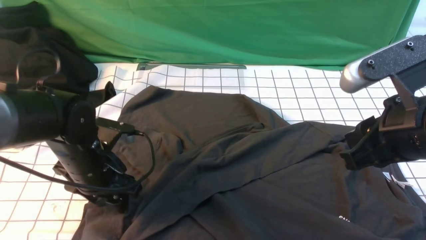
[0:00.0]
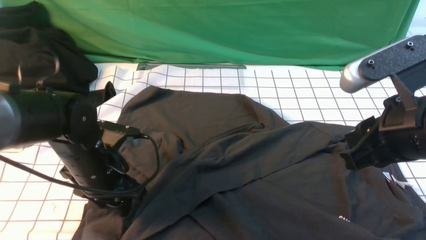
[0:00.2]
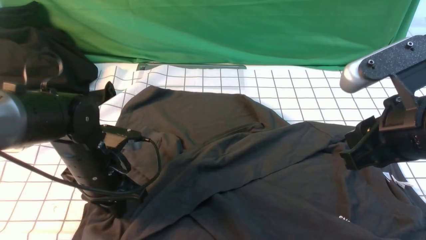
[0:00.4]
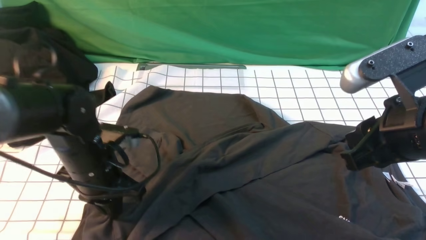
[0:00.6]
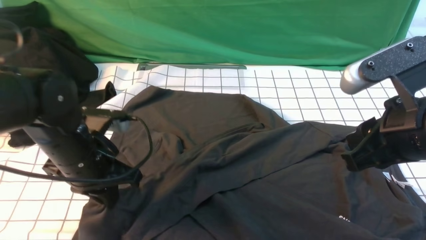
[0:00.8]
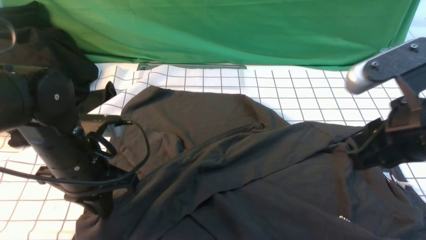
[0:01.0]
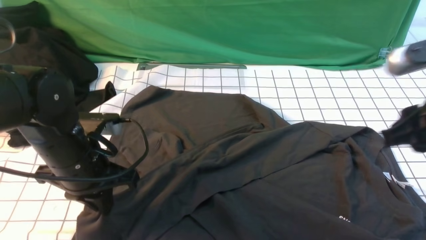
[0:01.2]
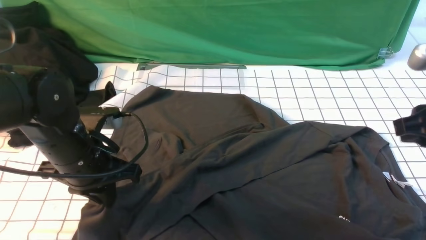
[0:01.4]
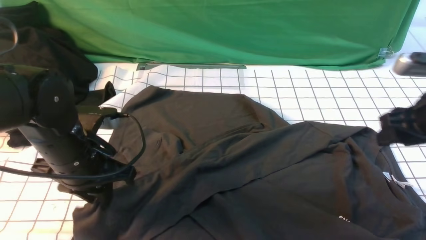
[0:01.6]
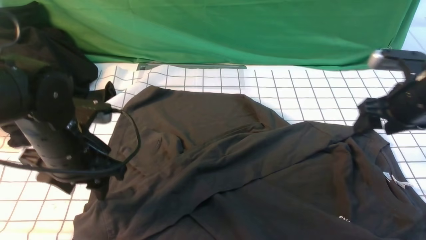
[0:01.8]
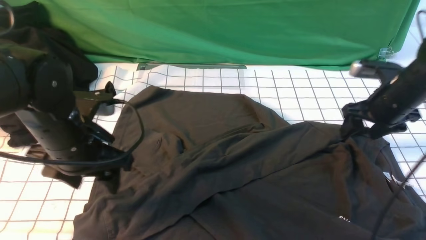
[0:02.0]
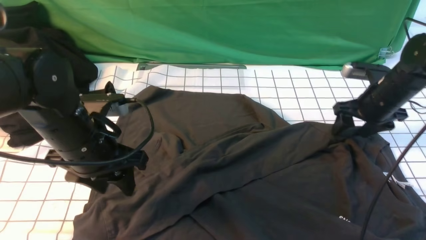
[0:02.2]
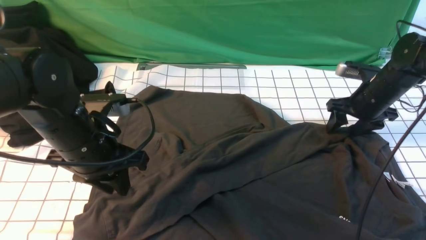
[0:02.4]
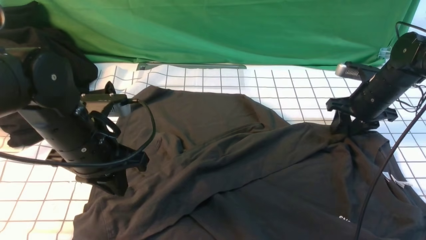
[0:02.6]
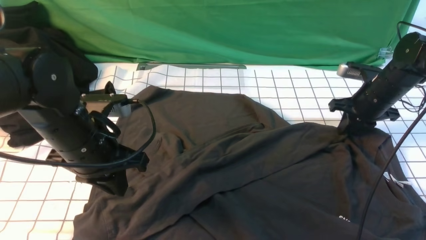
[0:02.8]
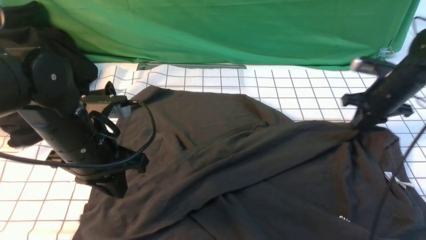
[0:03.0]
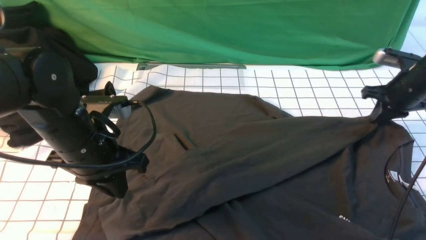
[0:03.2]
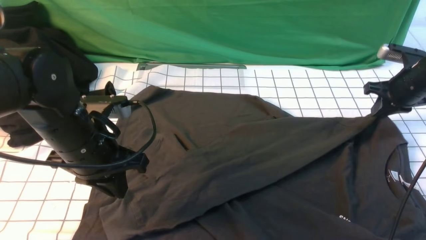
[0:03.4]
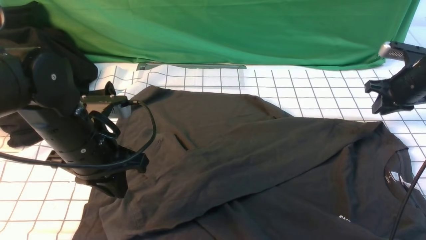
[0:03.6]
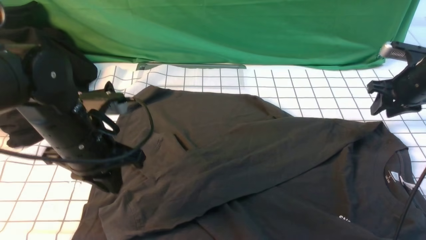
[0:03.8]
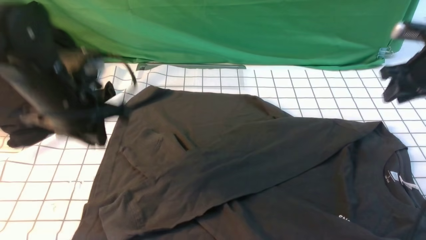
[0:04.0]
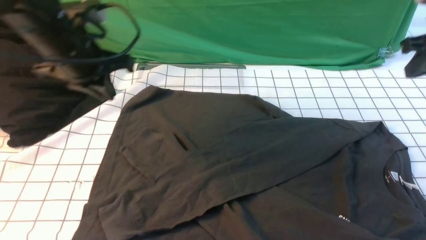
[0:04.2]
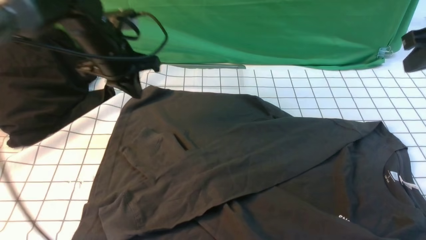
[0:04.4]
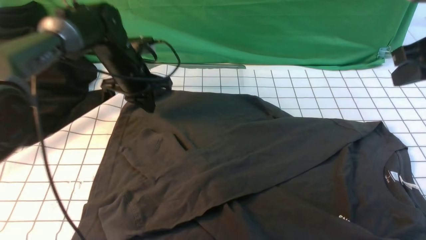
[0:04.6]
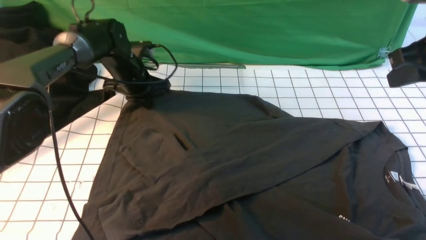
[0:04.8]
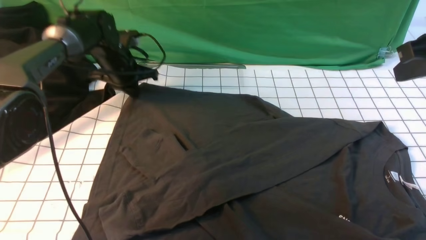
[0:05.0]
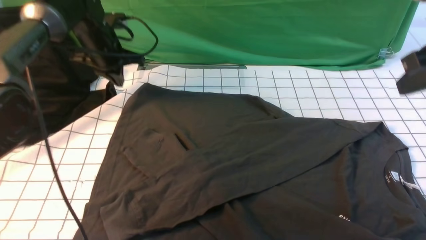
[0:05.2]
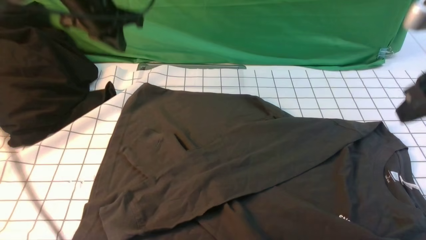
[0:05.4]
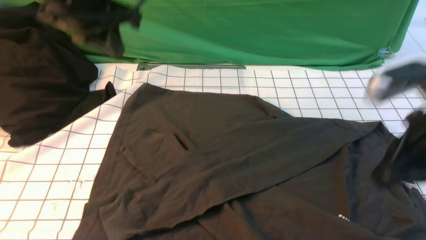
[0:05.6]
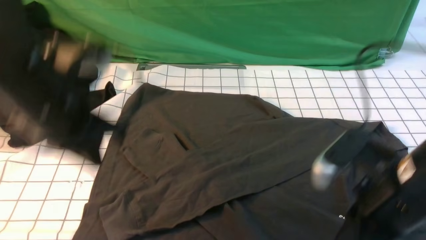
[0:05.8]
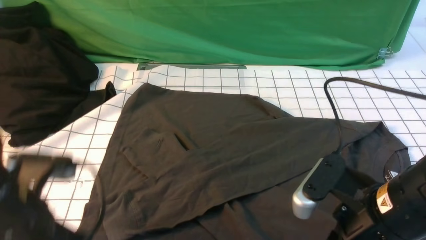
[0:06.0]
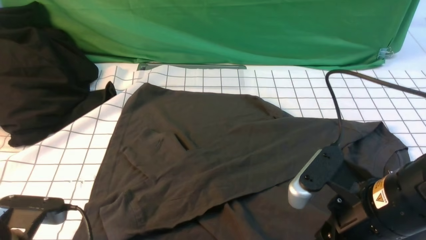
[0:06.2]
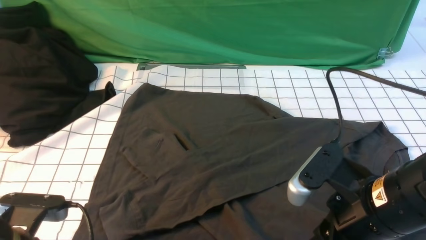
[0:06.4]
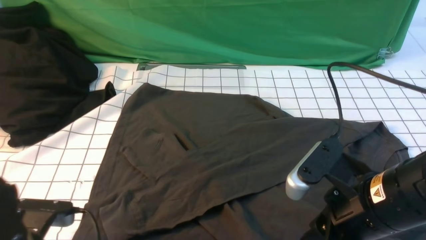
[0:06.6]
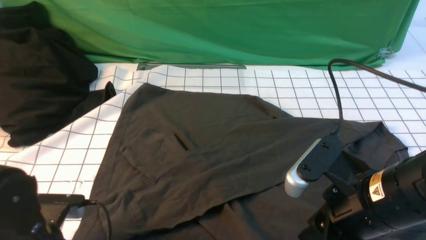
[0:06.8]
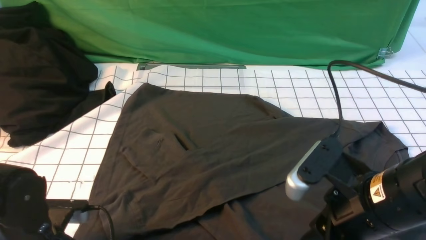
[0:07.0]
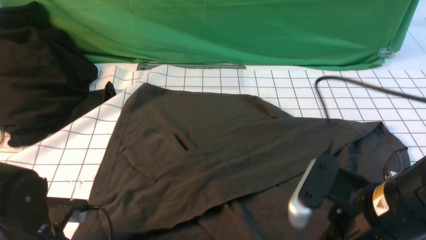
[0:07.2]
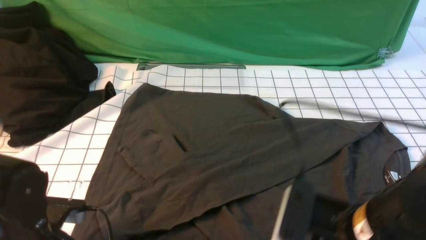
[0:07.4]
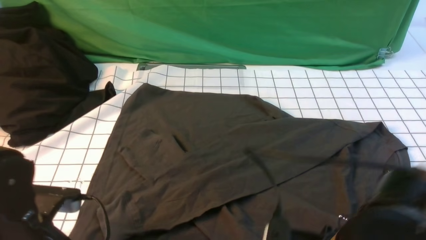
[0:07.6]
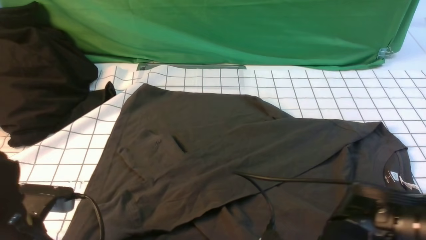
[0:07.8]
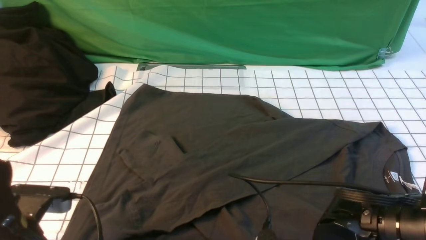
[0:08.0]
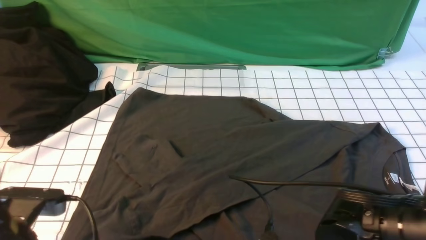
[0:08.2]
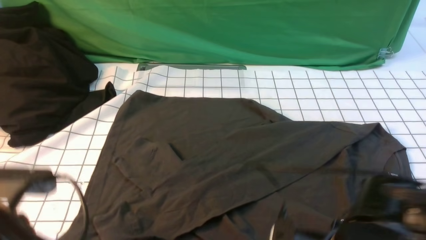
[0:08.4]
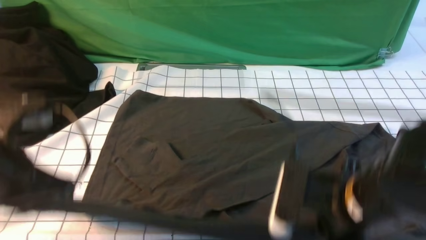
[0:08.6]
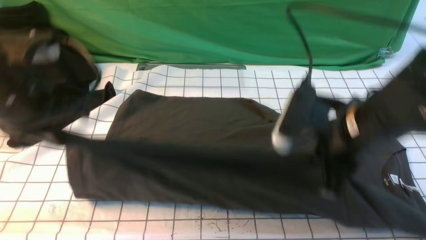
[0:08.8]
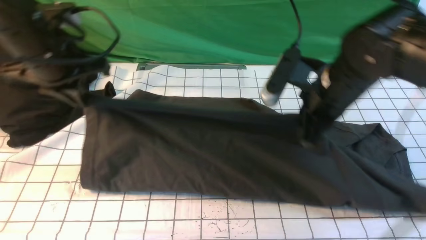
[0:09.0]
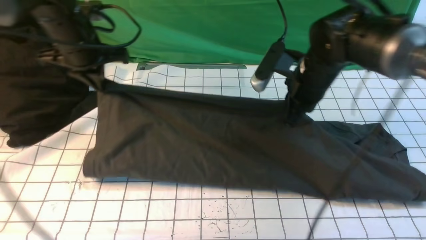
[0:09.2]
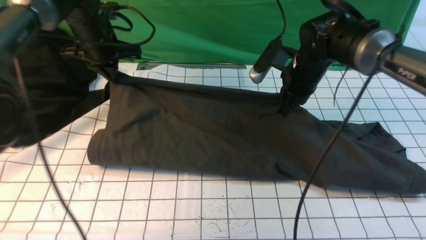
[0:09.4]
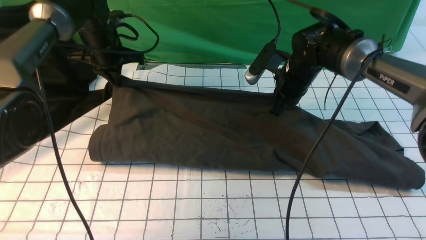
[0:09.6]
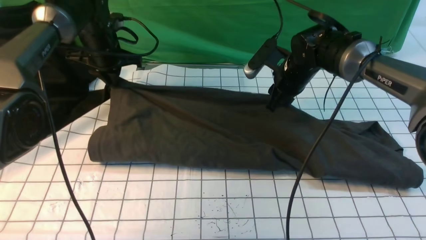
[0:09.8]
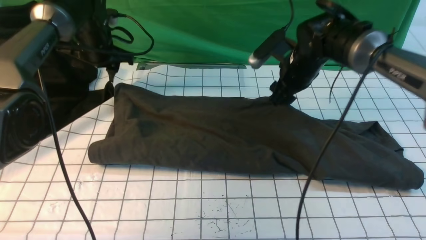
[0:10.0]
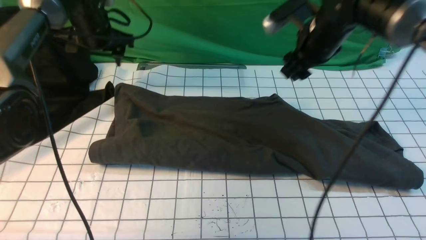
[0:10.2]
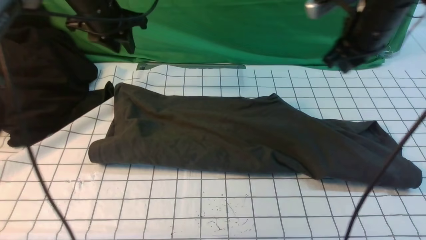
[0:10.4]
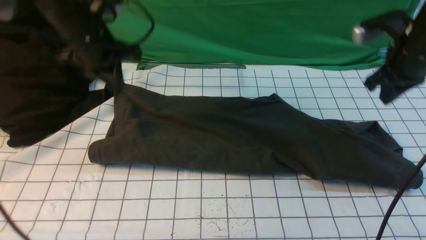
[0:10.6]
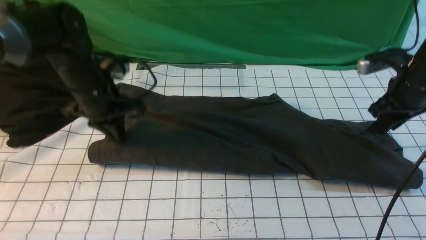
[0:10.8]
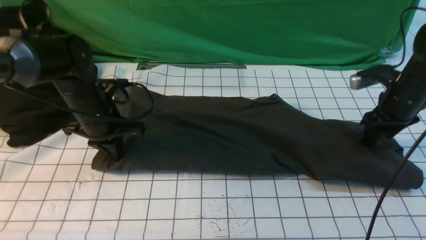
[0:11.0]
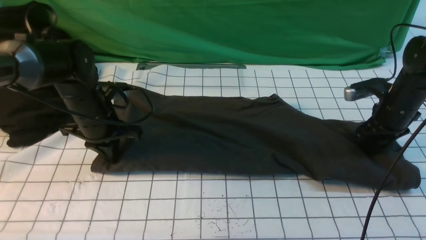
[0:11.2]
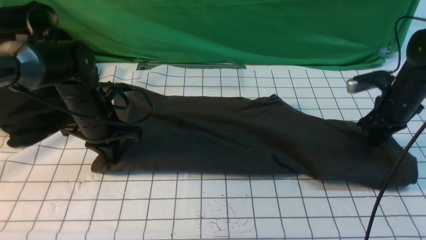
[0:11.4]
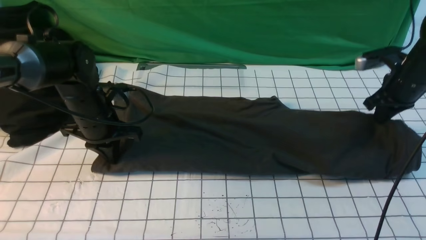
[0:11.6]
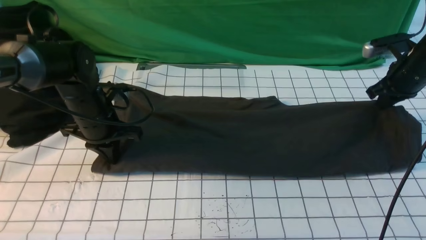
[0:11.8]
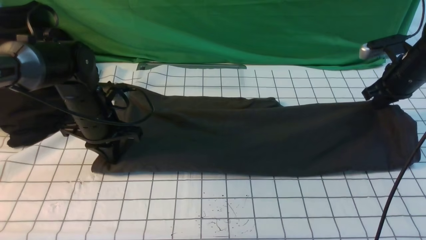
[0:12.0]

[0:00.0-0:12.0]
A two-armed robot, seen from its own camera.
Step, 0:00.0 to 0:08.2: use both arms simultaneously to clamp the lower edge of the clothing fabric.
Step, 0:08.6 to 0:10.4: use both arms to drag the lower edge of the fabric forward and fold it over the upper edge.
0:00.0 to 0:01.6: The right gripper heads forward, to the right and downward, covering roughly 15 cm. The left gripper goes approximately 5 cm upward, and closes, then opens again.
0:01.6 to 0:03.0: The right gripper is displaced forward and downward by about 15 cm, and closes its fingers. The left gripper closes its fingers.
0:03.0 to 0:04.4: The right gripper moves upward and backward, approximately 20 cm, and opens, then closes again, while the left gripper travels forward by roughly 15 cm.
0:04.4 to 0:06.0: The left gripper travels backward by about 25 cm. Meanwhile the right gripper is displaced backward, to the left and downward by about 25 cm.
0:06.0 to 0:07.6: The right gripper ends up roughly 10 cm from where it was, and opens its fingers. The left gripper goes roughly 5 cm downward, and opens and closes again.
0:07.6 to 0:09.0: The right gripper is displaced forward by about 20 cm, and closes its fingers. Meanwhile the left gripper moves forward and upward, about 25 cm.
0:09.0 to 0:10.4: The right gripper goes roughly 15 cm to the right and forward, and opens, then closes once more. The left gripper travels forward by some 10 cm, and opens its fingers.
0:10.4 to 0:12.0: The right gripper goes some 15 cm to the right and downward, while the left gripper travels downward and backward by some 15 cm, and closes up.

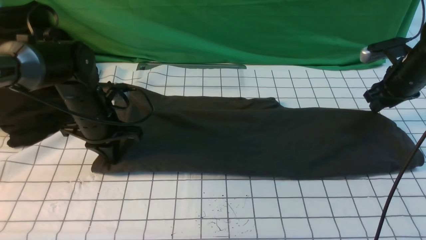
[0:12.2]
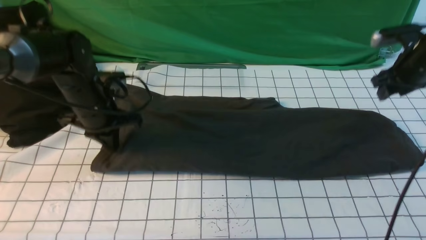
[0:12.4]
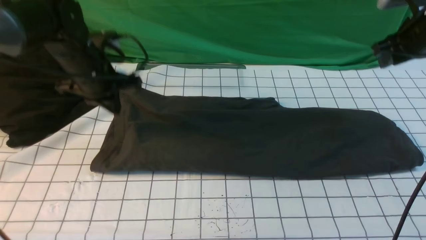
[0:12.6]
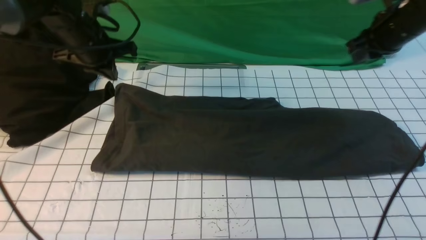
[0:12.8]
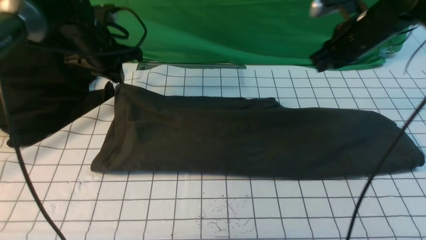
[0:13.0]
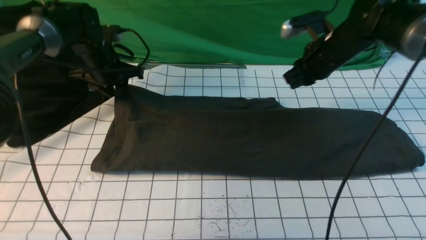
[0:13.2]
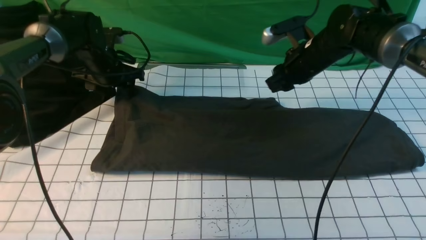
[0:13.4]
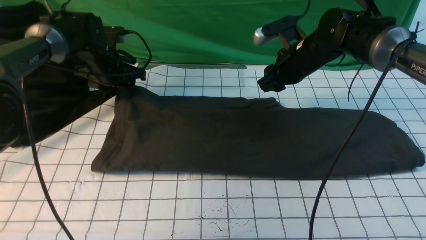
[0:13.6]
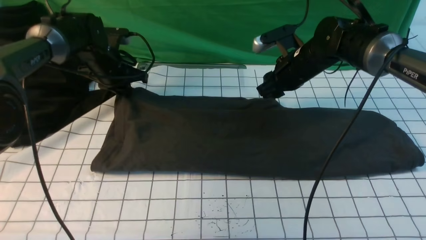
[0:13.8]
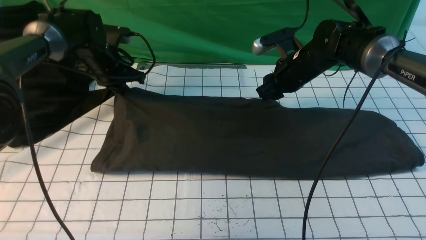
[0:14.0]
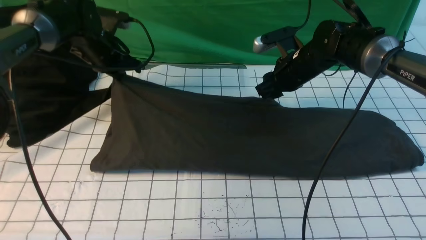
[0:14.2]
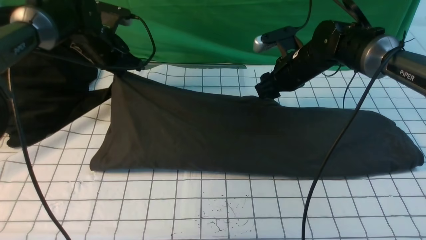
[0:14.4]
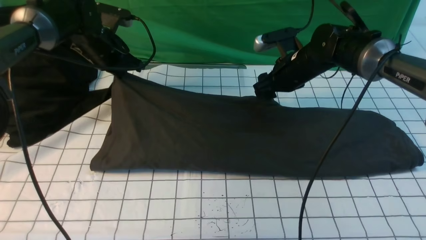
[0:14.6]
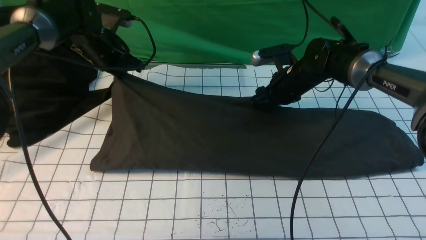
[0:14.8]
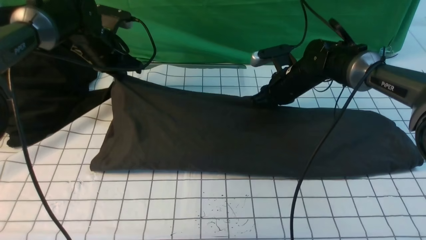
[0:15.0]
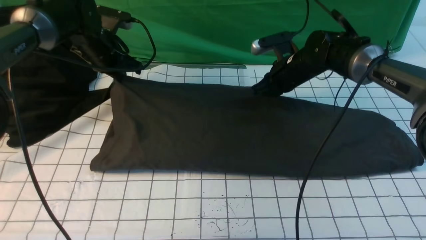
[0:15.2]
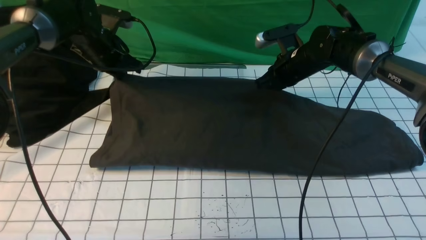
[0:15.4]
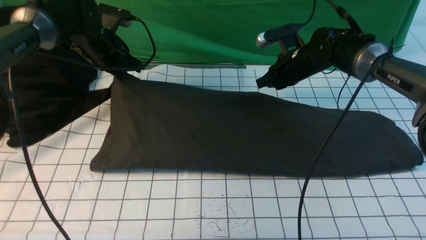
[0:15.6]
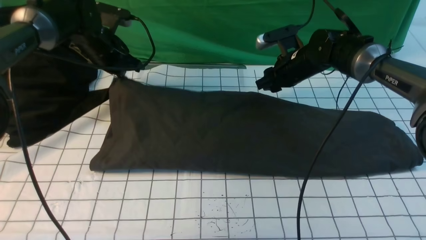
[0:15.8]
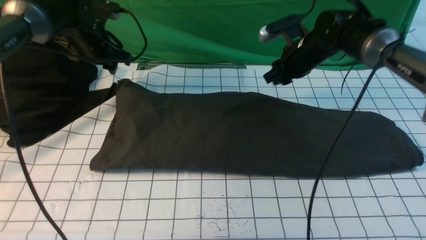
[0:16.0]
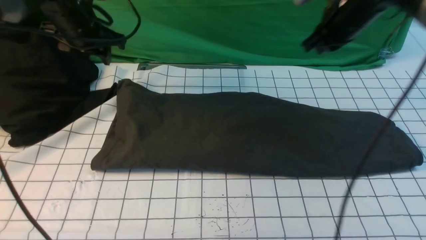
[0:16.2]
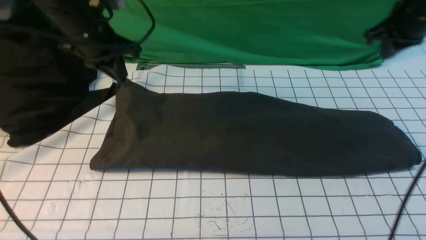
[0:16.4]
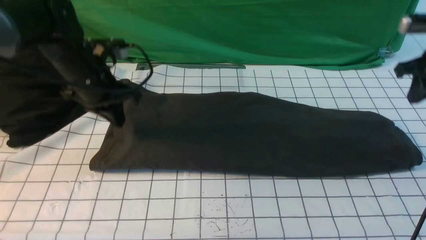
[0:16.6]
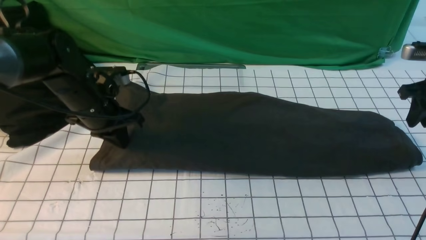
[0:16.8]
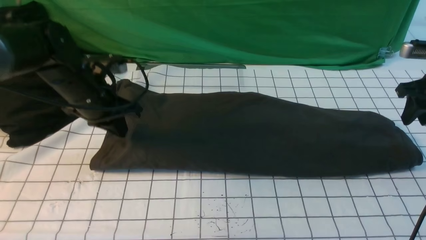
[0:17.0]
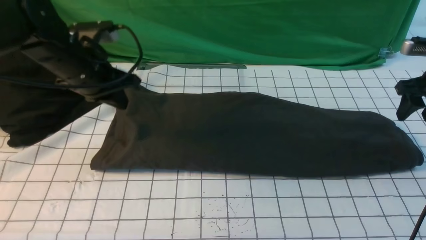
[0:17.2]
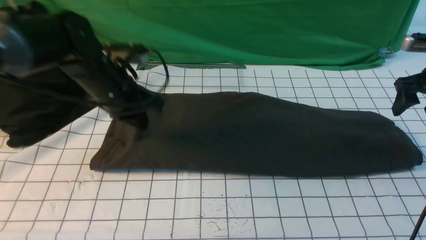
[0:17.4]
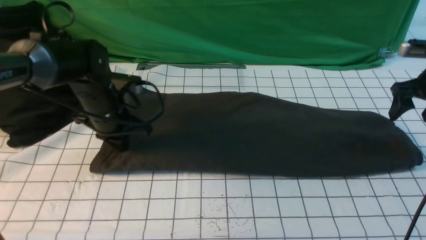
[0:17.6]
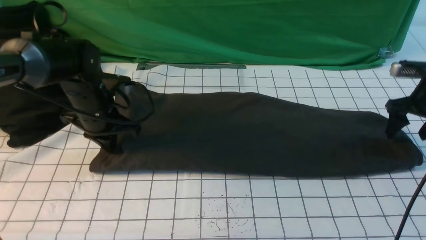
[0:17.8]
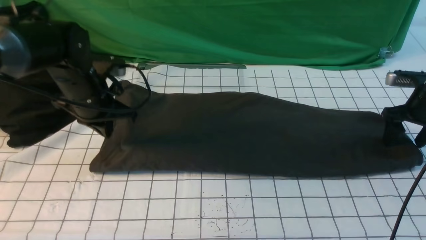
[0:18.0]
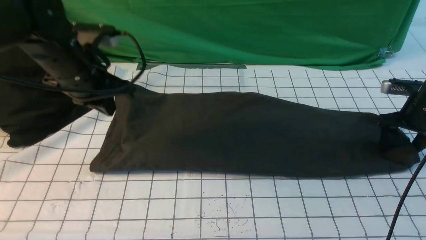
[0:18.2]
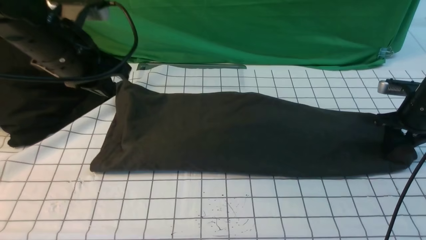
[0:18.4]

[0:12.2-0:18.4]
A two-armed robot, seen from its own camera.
0:12.2 to 0:13.8: The left gripper is displaced forward by roughly 10 cm, and opens up. The right gripper moves to the left, roughly 20 cm, and closes and opens again.
0:13.8 to 0:15.4: The right gripper closes up.
0:15.4 to 0:16.8: The right gripper goes about 20 cm to the right, while the left gripper heads backward, covering some 10 cm, and opens, then closes once more.
0:16.8 to 0:18.4: The left gripper travels upward and backward by approximately 10 cm; the right gripper moves downward, some 10 cm, and opens, then closes once more.
